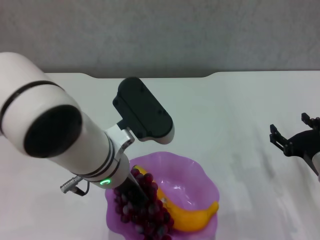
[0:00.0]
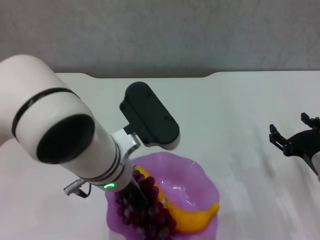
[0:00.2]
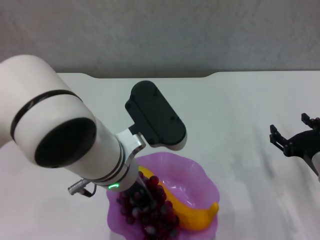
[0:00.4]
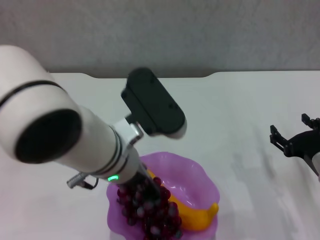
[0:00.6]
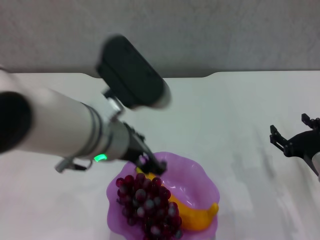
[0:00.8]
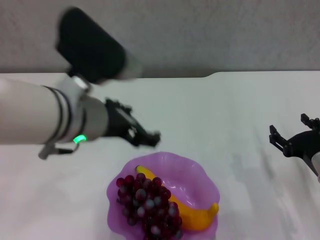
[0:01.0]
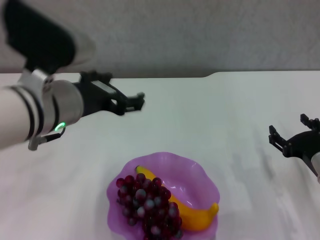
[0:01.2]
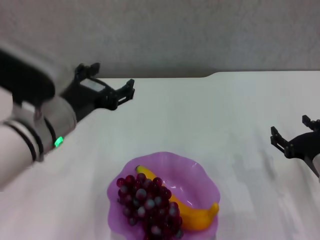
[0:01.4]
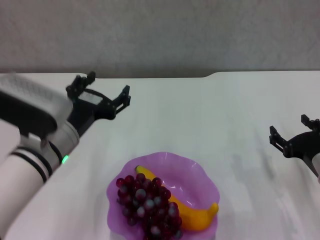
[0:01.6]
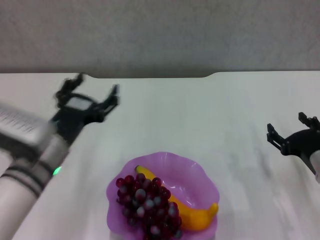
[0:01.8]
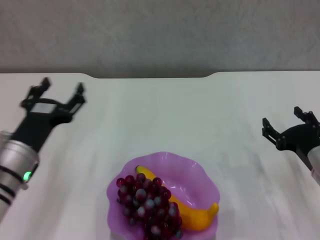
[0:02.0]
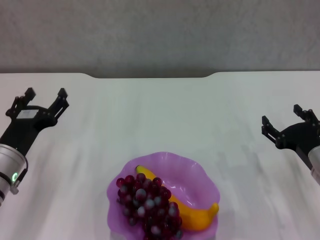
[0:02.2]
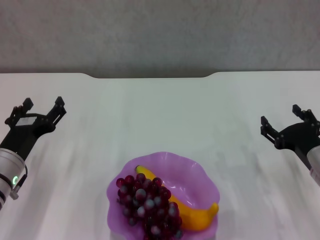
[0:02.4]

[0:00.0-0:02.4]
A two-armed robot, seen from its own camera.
0.0 to 1.2 s: The left gripper shifts roughly 10 cm to the left and upward, and opens up.
1.2 to 2.4 s: The left gripper heads downward and to the left, covering roughly 20 cm.

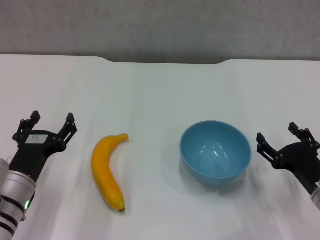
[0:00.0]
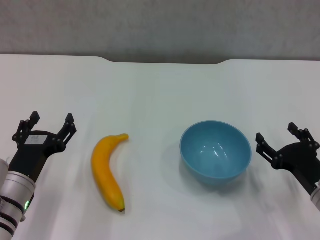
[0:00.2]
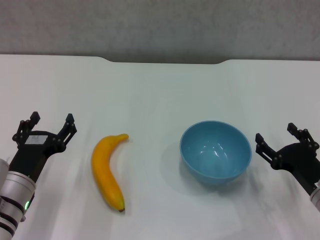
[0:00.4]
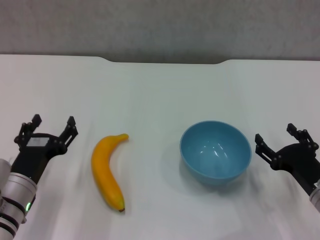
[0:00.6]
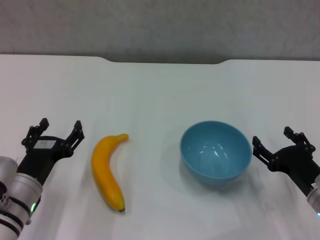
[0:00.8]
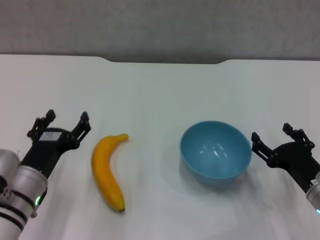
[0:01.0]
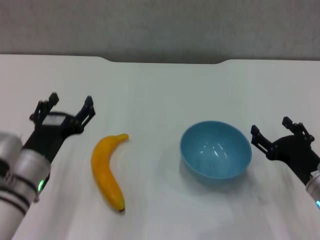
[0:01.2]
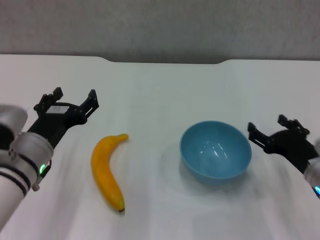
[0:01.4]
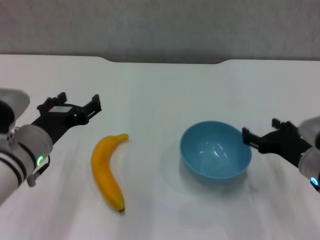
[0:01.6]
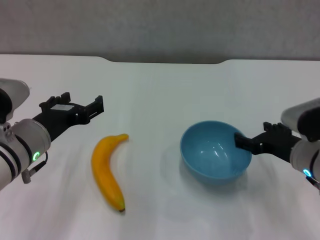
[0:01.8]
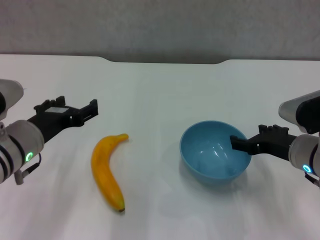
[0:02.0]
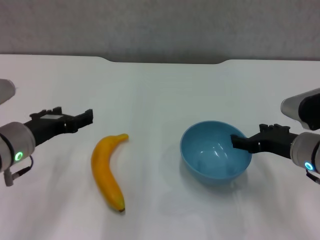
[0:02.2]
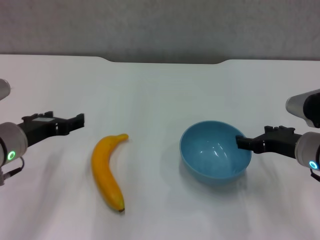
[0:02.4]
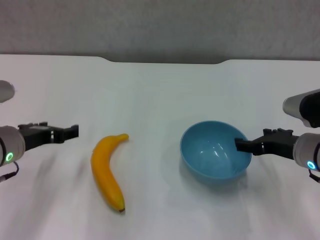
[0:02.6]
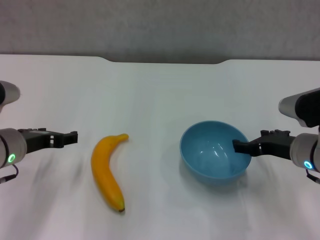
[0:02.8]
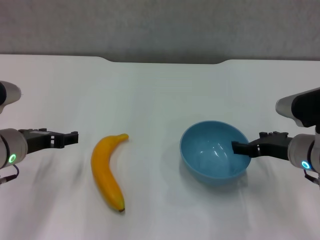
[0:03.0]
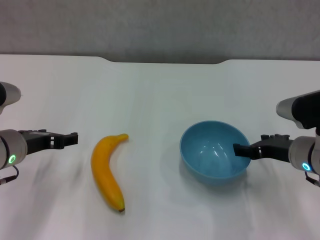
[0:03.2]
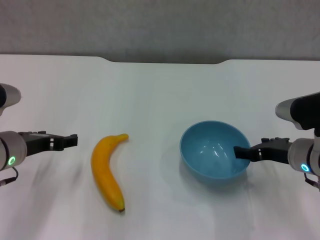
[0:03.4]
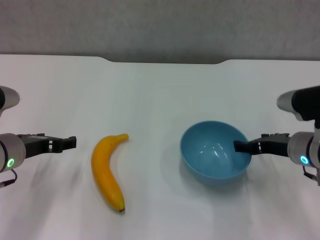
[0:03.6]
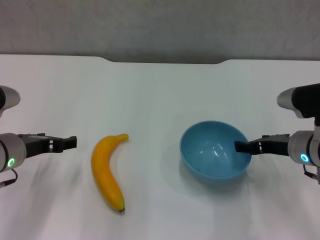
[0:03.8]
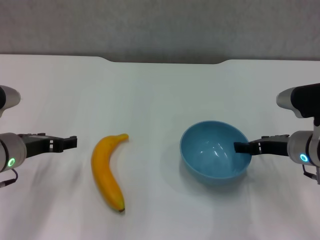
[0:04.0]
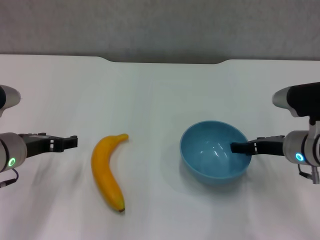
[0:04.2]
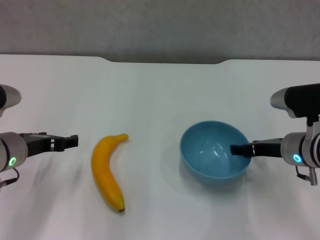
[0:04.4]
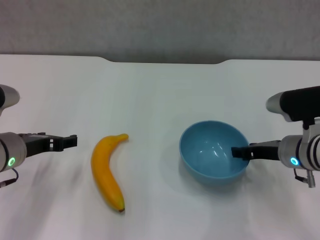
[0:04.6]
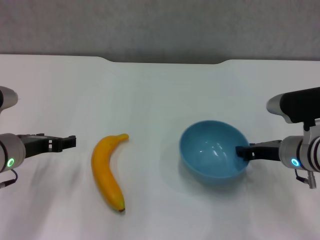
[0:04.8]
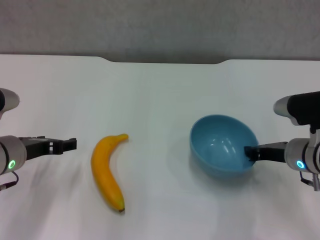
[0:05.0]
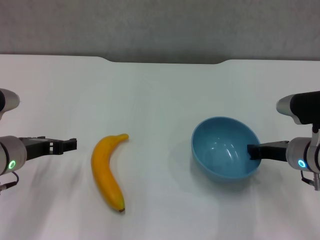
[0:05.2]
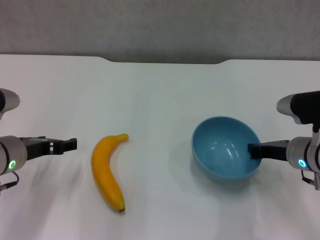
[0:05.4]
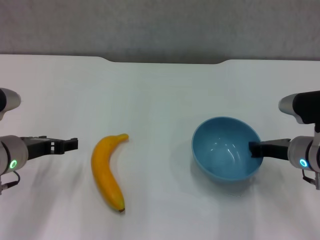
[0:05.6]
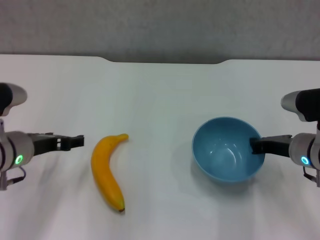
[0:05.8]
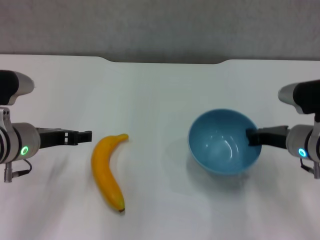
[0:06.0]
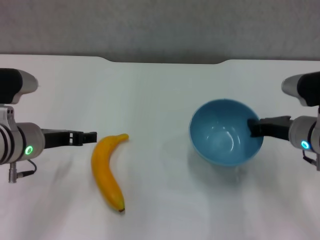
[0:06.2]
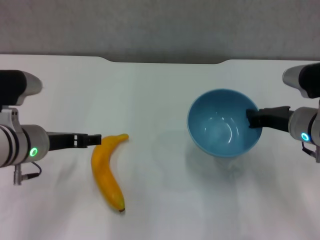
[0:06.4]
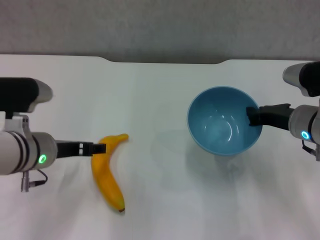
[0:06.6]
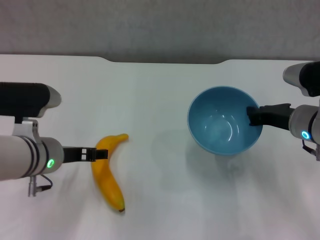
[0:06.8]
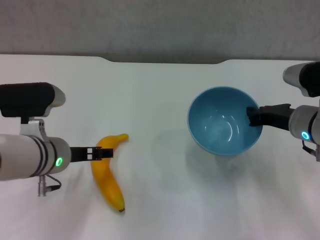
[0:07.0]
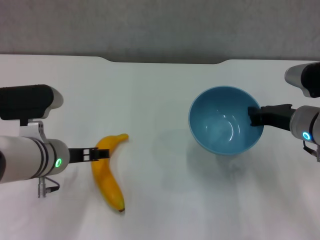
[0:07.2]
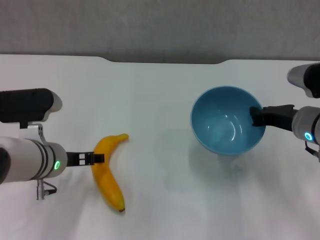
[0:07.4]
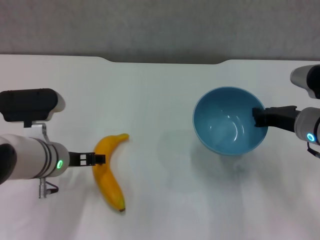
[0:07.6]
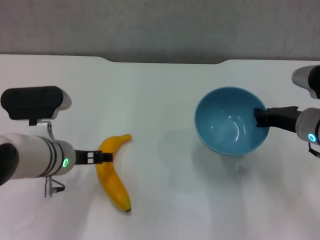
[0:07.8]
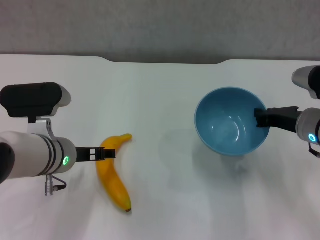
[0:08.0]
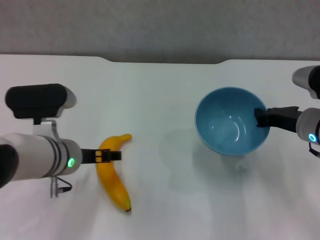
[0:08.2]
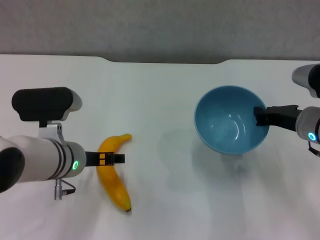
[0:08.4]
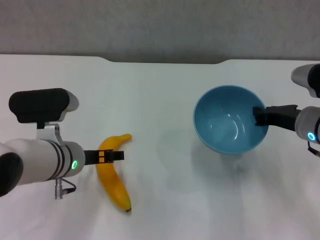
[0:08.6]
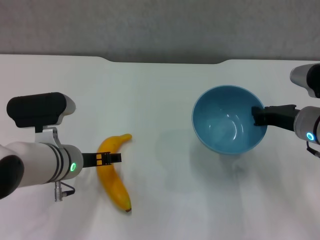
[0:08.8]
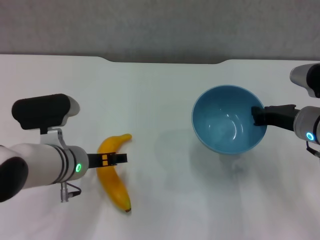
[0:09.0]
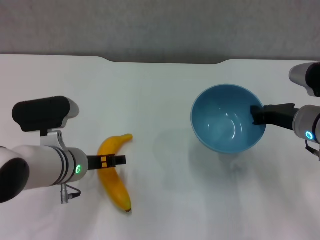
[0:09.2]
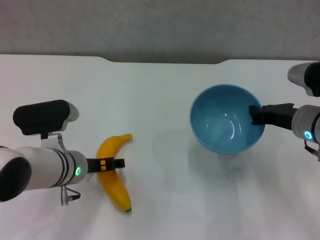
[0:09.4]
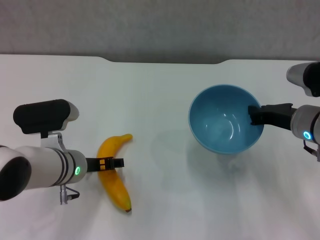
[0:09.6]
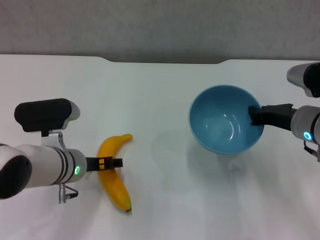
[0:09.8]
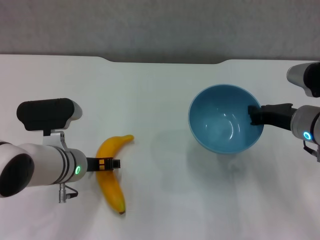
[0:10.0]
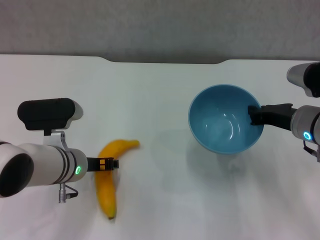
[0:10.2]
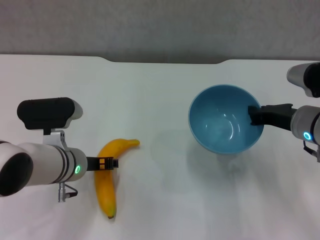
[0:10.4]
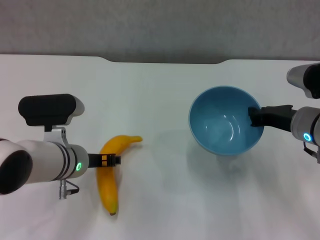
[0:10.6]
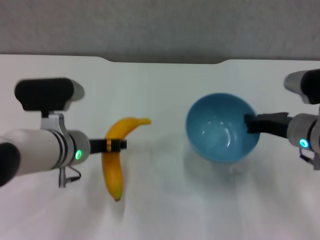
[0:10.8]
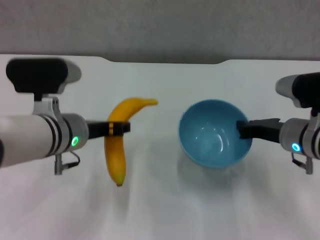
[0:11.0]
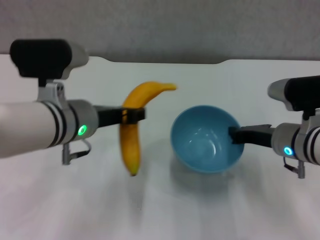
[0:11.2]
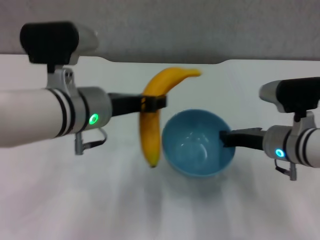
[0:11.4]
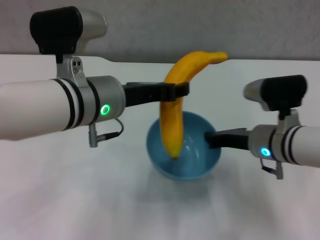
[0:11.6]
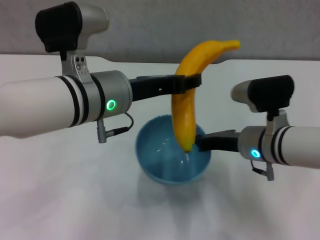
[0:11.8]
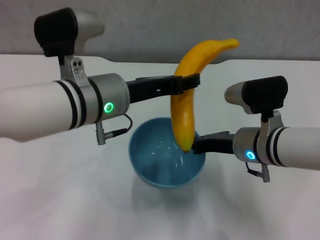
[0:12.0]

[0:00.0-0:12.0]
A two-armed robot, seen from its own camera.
Step, 0.0 to 5.2 s: Grasp the blue bowl with right gripper.
Step, 5.6 to 6.4 s: Lift the blue bowl with right gripper.
Step, 6.6 to 10.2 s: Grasp the banana with left gripper.
0.0 to 1.6 s: The left gripper moves upward, roughly 10 cm. Meanwhile the right gripper changes place by about 5 cm.
1.6 to 3.0 s: The left gripper ends up some 5 cm from where it was.
3.0 to 4.4 s: The grippers stay close to where they were, moving slightly.
4.4 to 6.0 s: The right gripper closes.
6.0 to 7.6 s: The left gripper moves some 5 cm.
7.6 to 9.0 s: The grippers make only small movements.
9.0 to 10.4 s: The left gripper closes up.
10.4 to 12.0 s: The left gripper is displaced upward and to the right by approximately 15 cm; the right gripper is displaced to the left by roughly 10 cm.

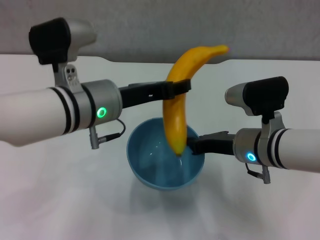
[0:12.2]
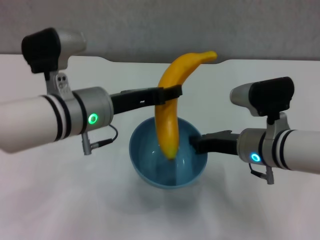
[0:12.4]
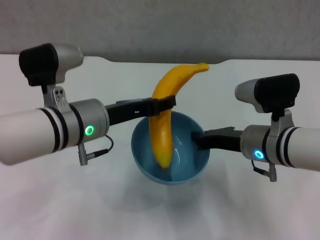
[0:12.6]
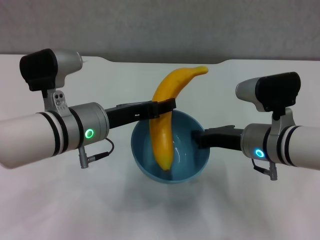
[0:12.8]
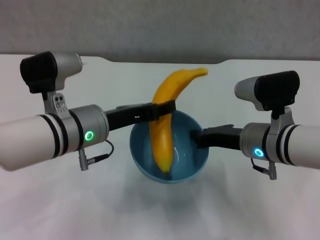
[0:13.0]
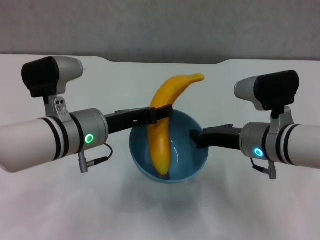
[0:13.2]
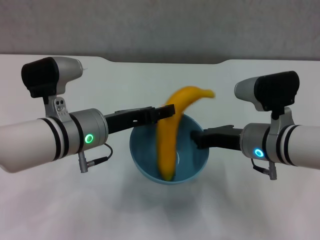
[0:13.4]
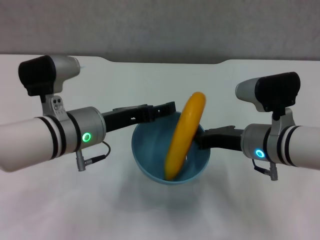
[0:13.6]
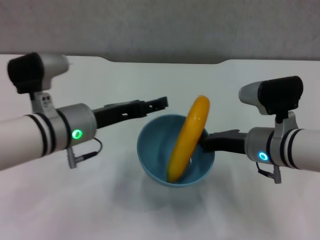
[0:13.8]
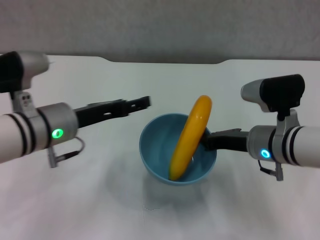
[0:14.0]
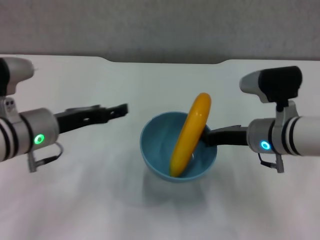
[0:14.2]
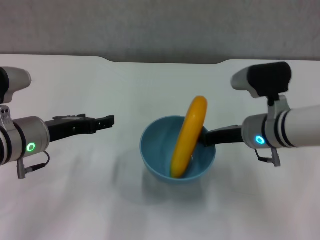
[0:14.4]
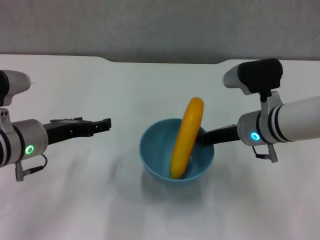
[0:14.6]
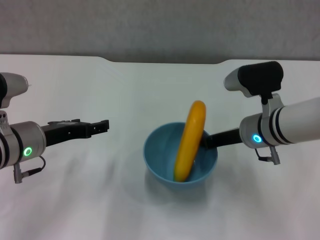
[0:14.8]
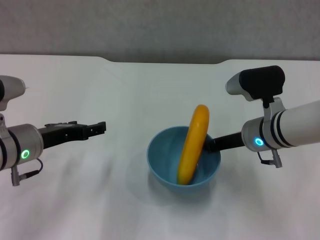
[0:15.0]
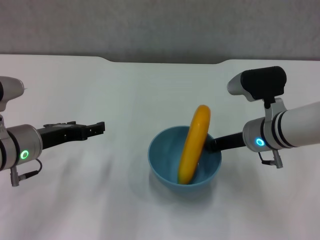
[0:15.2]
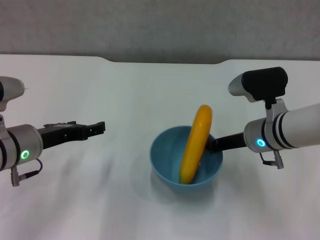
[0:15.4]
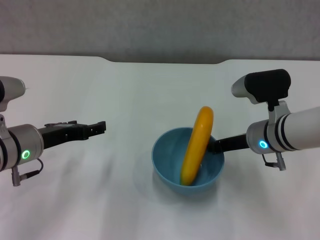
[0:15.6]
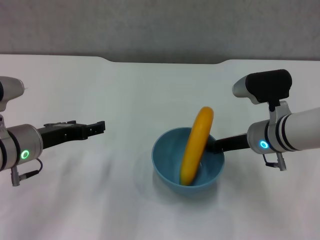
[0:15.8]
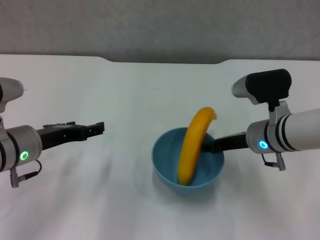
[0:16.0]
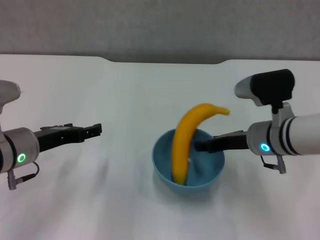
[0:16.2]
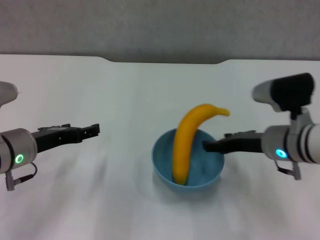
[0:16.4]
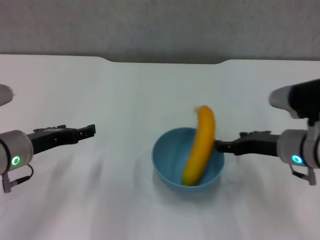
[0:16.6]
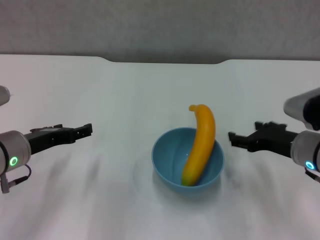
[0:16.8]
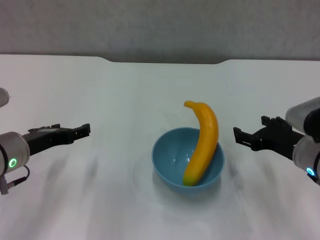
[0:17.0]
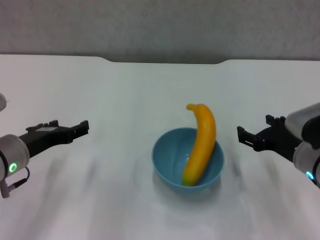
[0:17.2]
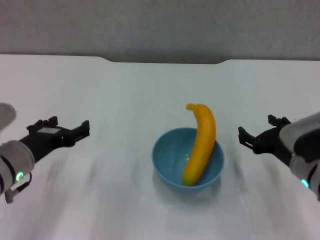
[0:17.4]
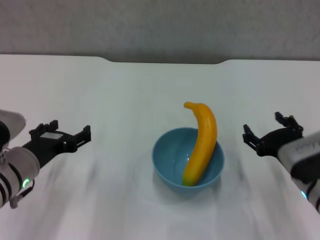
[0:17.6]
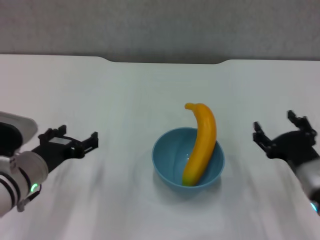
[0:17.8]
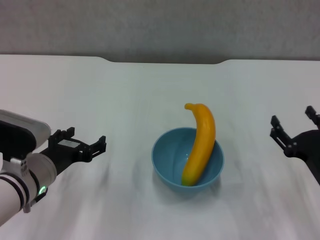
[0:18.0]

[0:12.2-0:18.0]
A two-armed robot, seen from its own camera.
Step, 14.0 to 16.2 s: Place the bowl on the table with right gripper.
12.2 to 13.6 s: The left gripper ends up about 5 cm from where it was, and opens.
13.6 to 15.0 s: The left gripper travels to the left by about 10 cm.
15.0 to 16.6 s: The right gripper goes about 5 cm to the right, and opens.
16.6 to 18.0 s: The right gripper heads backward and downward, covering some 10 cm; the left gripper moves approximately 5 cm.

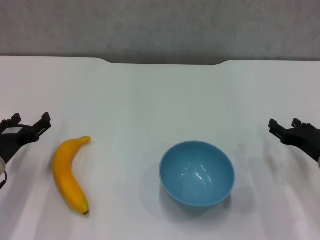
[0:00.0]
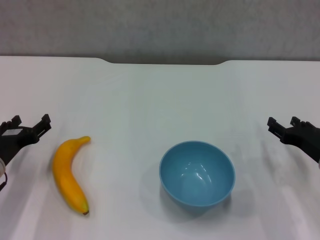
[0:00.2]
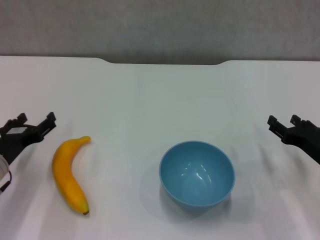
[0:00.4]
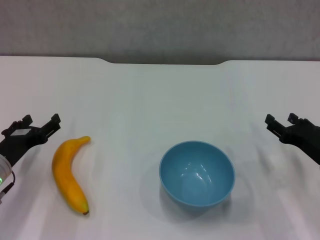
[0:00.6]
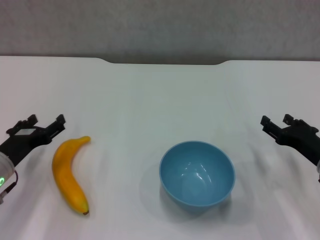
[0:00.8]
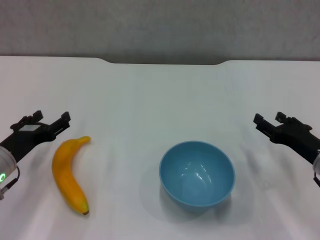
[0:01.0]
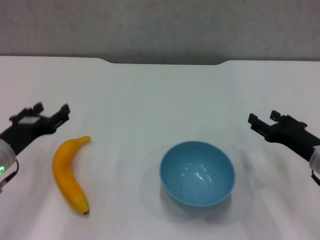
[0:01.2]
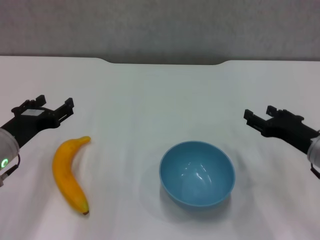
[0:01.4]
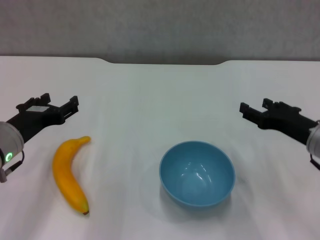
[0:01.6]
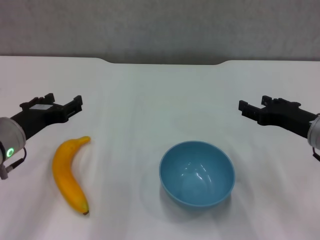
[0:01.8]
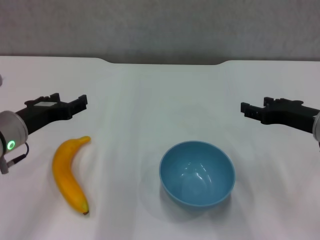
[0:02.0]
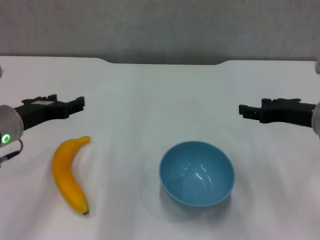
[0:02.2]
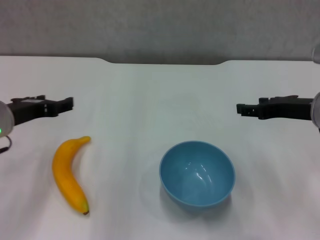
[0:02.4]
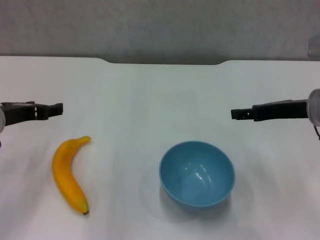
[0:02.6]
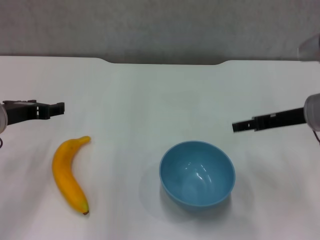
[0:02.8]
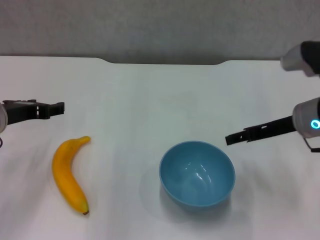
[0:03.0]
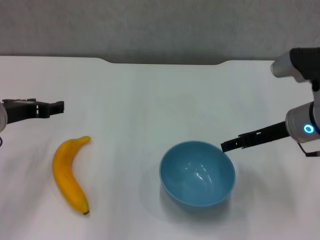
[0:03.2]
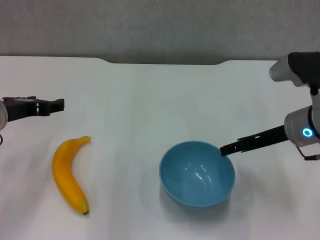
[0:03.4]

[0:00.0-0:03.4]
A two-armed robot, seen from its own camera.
0.0 to 1.6 s: The two grippers go roughly 5 cm upward.
1.6 to 3.4 s: The right gripper changes place by about 5 cm. Meanwhile the left gripper is displaced upward by about 5 cm.
